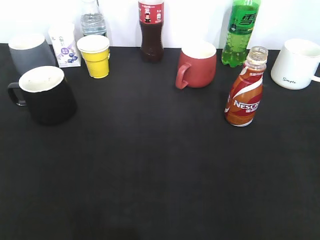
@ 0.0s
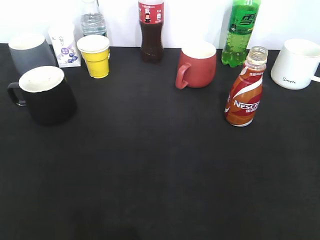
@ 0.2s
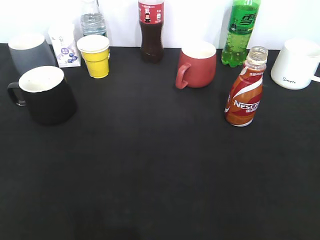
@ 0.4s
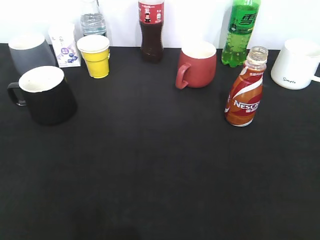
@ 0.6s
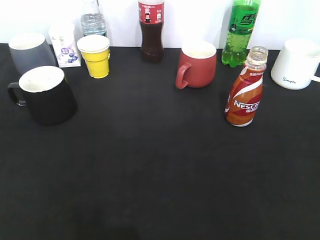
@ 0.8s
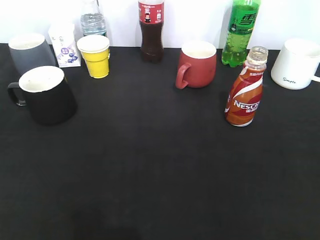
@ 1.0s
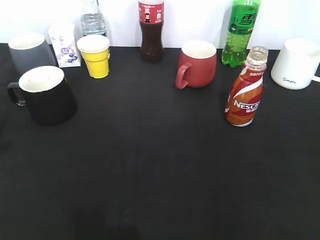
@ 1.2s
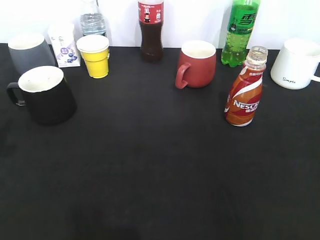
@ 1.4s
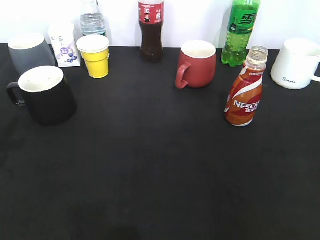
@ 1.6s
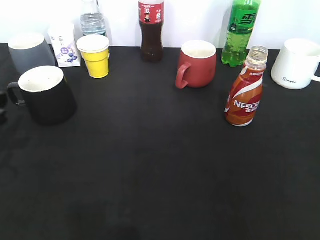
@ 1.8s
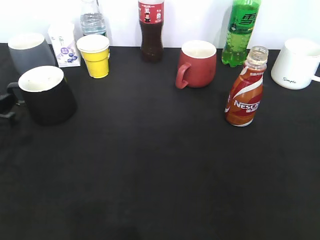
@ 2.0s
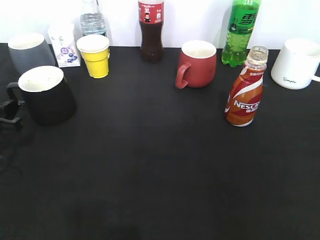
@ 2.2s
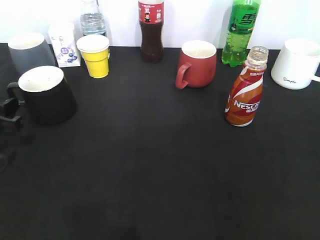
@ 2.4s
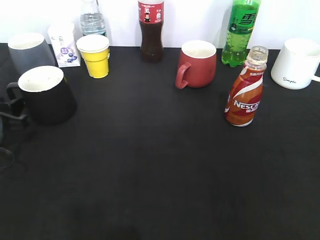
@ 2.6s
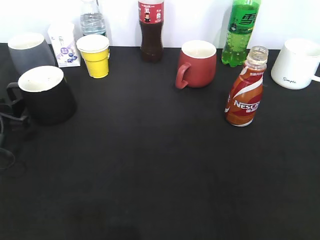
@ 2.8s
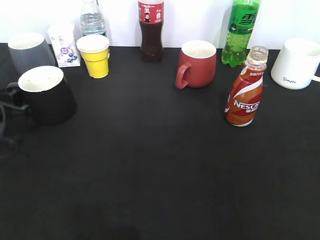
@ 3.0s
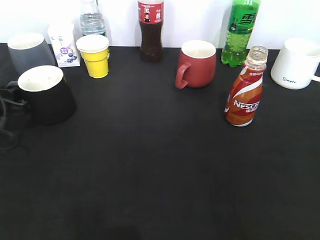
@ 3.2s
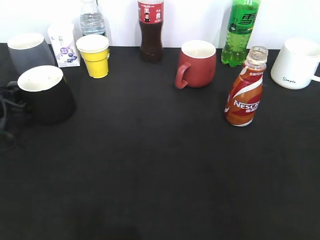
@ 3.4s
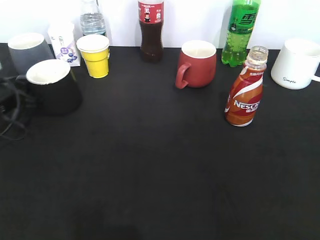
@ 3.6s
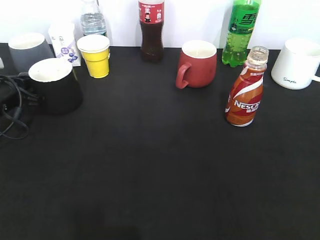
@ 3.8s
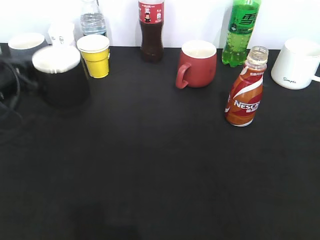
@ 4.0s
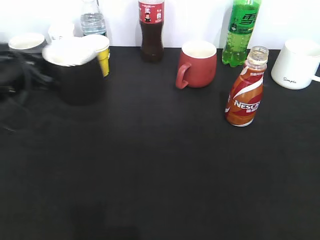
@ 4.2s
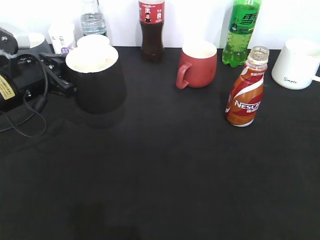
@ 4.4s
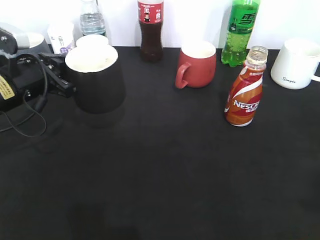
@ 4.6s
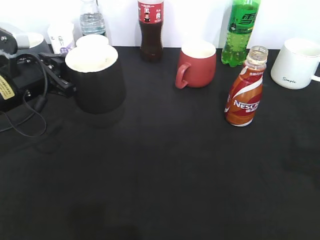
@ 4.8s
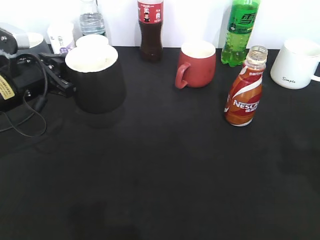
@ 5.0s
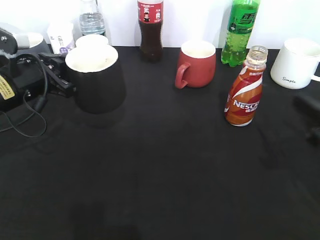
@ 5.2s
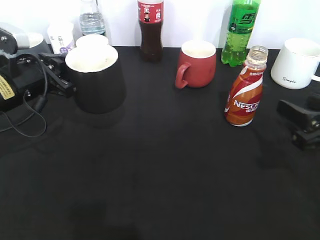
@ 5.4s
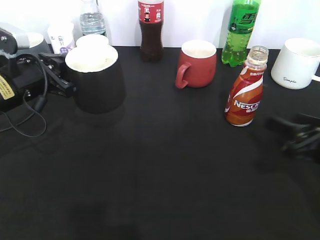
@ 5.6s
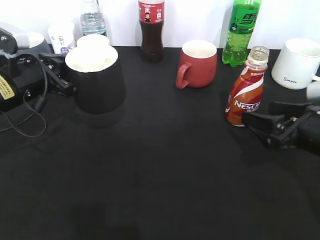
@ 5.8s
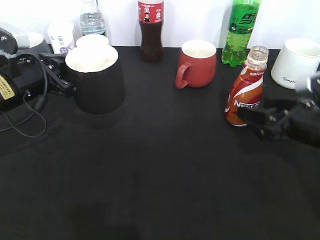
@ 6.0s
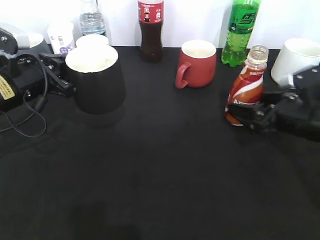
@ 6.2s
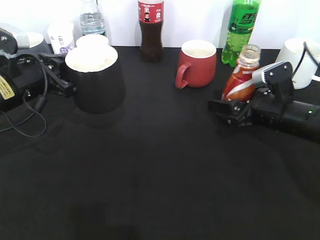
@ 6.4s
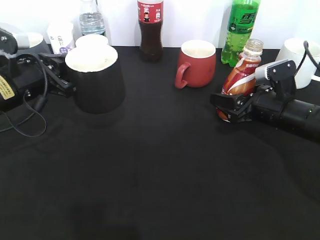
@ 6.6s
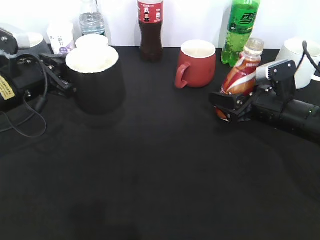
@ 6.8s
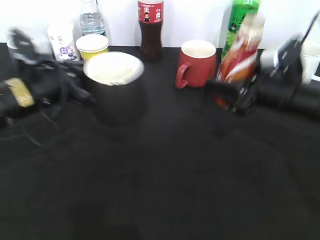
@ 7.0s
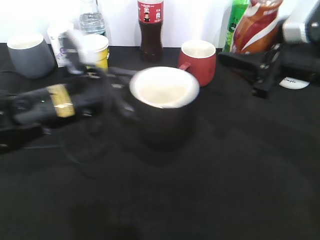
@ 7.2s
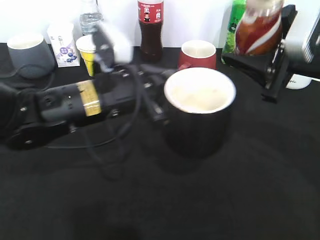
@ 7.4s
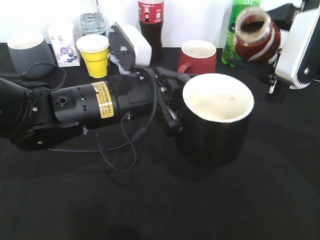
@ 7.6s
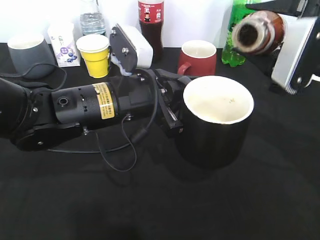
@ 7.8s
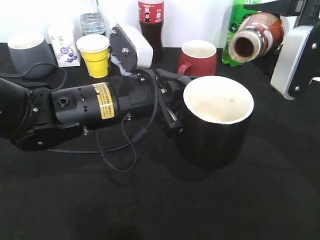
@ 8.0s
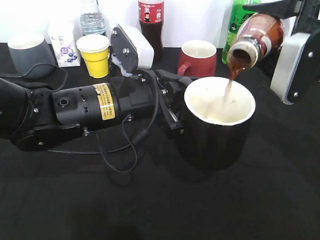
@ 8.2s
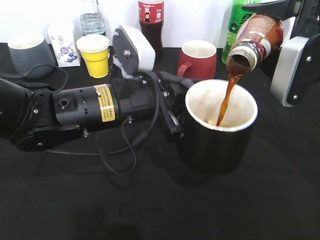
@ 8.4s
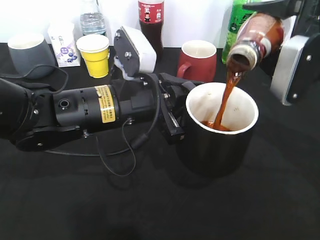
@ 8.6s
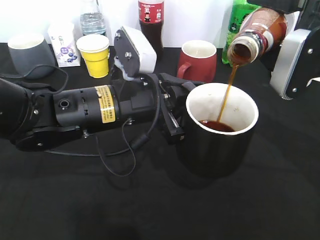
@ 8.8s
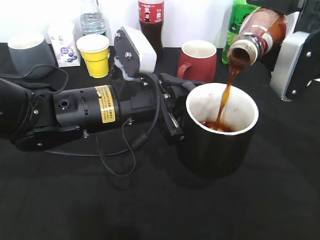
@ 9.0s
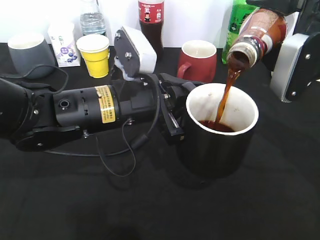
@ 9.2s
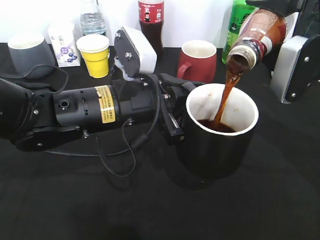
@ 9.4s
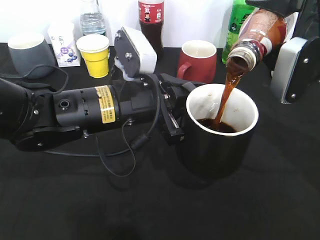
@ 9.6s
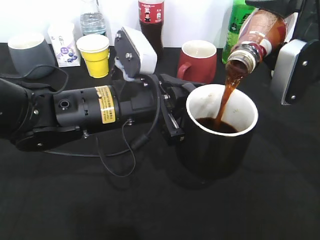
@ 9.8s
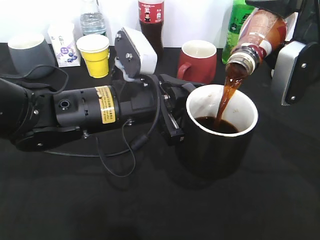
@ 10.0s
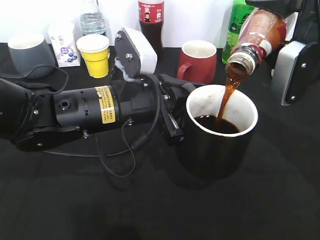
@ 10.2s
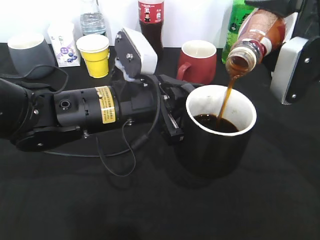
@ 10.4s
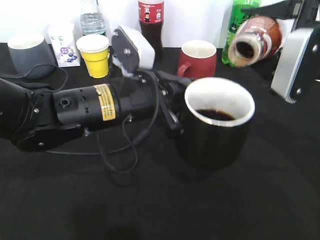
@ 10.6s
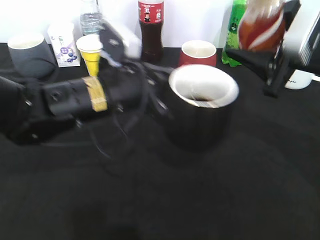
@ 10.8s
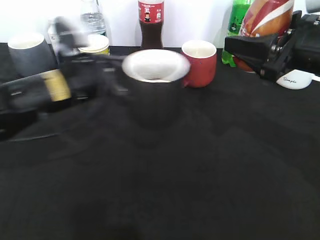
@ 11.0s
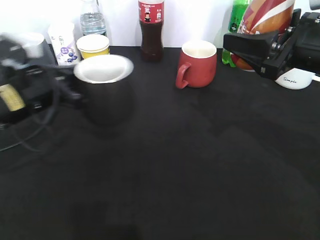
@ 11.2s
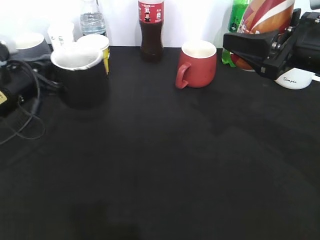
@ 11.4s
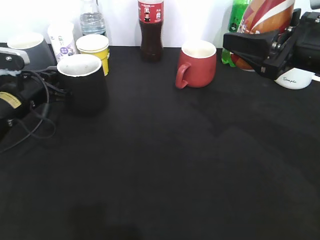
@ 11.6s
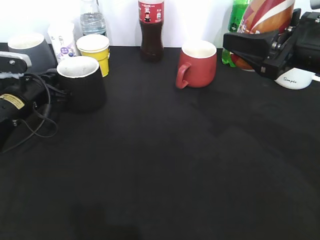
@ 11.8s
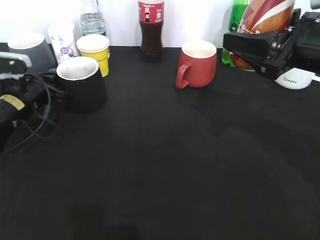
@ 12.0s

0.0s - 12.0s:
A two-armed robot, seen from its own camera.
Step, 0.8s - 3.6s: Grasp the black cup with left gripper.
Step, 3.8s - 4.4s: Lift the black cup with left gripper.
Step, 4.6s - 6.4s: Grasp the bottle with coffee with right gripper.
Step, 6.6s - 10.8s: Pour the coffee from bottle to cup with right gripper.
0.0s - 1.6s: The left gripper goes about 20 cm forward, and opens its fingers.
3.0s - 4.4s: The left gripper shifts about 5 cm to the right, and closes its fingers.
4.4s - 6.0s: The right gripper shifts some 30 cm forward and downward, and opens.
6.0s - 7.6s: The left gripper shifts roughly 15 cm to the right. The right gripper is displaced upward by roughly 10 cm, and closes its fingers.
9.0s - 10.4s: The grippers make only small movements.
10.4s - 12.0s: The left gripper shifts approximately 25 cm to the left, forward and downward, and opens up.

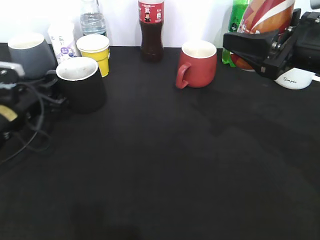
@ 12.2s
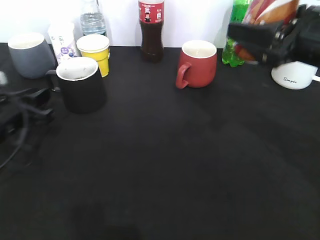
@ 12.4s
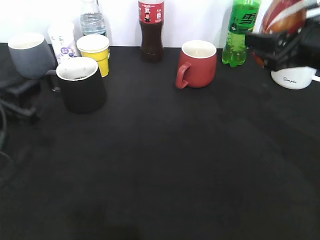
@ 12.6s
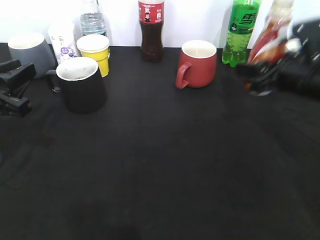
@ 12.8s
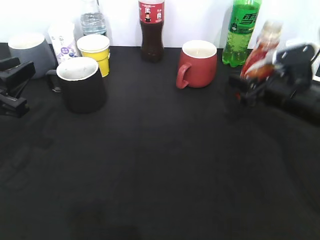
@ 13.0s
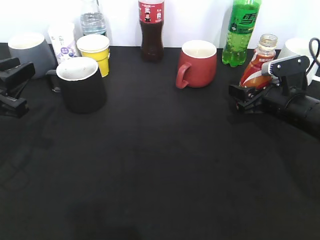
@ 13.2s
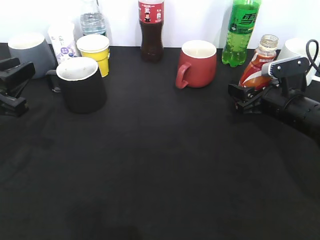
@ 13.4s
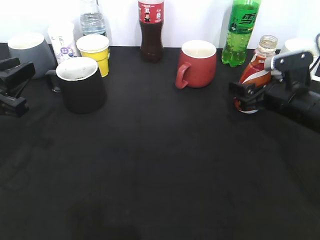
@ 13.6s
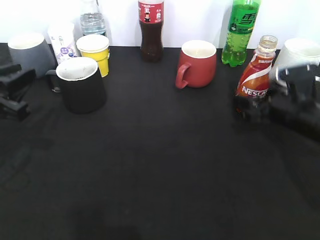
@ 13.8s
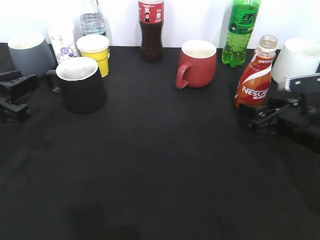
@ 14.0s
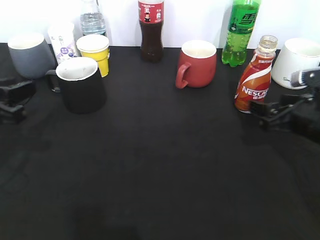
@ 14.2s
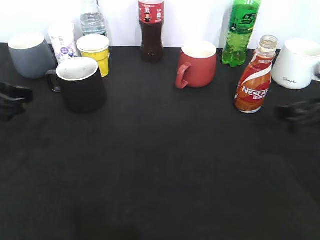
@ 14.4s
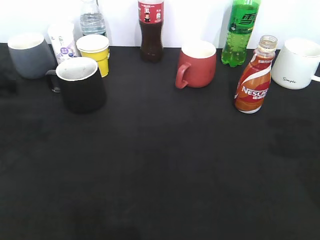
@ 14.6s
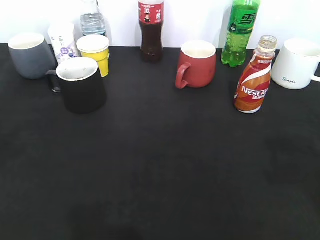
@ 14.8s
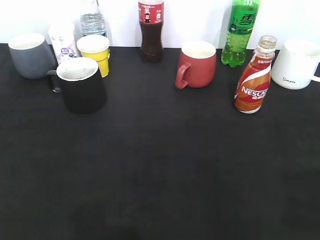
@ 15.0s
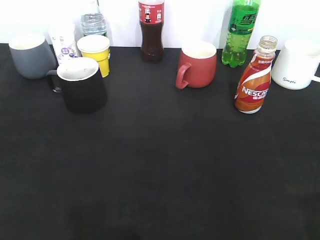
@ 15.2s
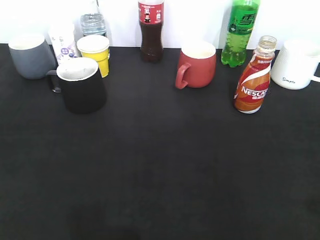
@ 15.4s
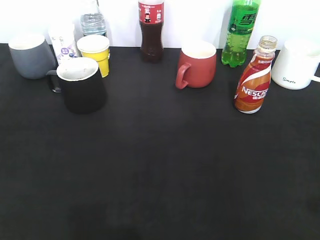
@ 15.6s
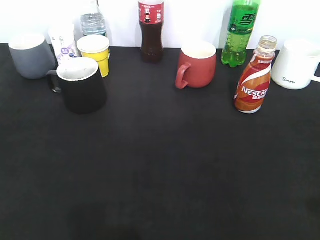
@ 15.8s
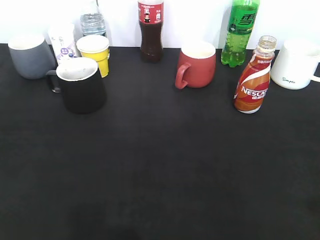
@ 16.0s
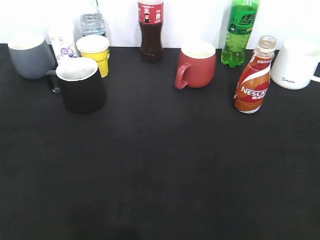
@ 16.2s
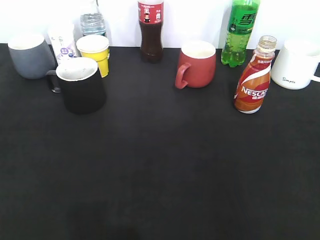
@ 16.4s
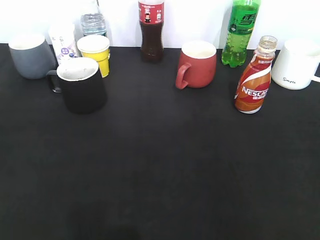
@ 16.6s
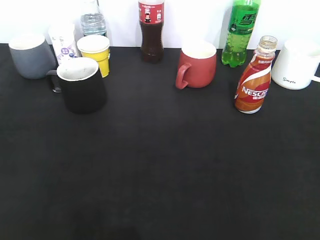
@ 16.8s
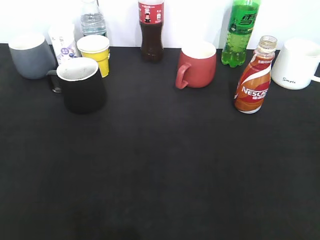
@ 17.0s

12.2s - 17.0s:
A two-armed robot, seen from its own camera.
Step, 12.4s - 13.8s: Place the coffee bottle on the table with right gripper.
12.2s - 13.8s: The left gripper travels backward and upward by some 15 cm. The right gripper is displaced downward by some 15 cm, and opens up.
13.8s - 15.4s: The two grippers go some 25 cm backward and upward. The right gripper closes up.

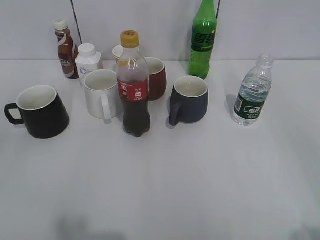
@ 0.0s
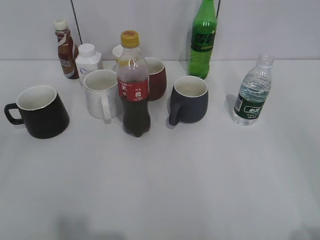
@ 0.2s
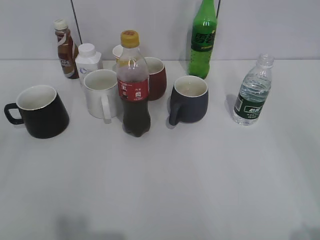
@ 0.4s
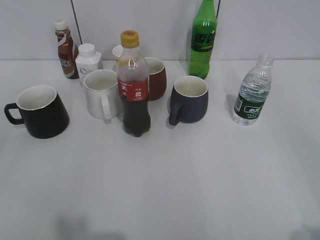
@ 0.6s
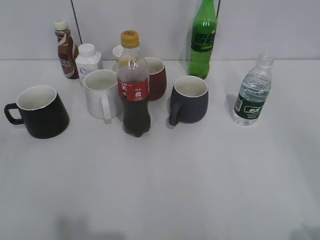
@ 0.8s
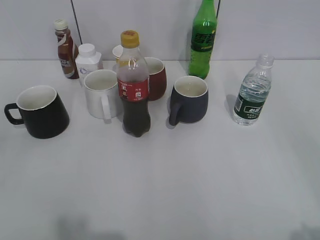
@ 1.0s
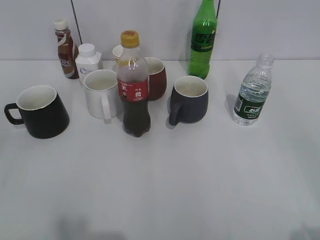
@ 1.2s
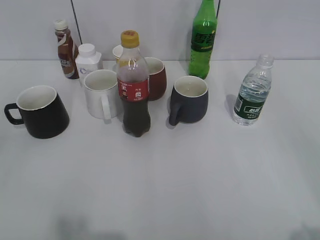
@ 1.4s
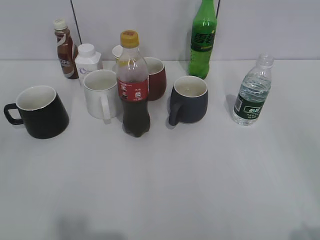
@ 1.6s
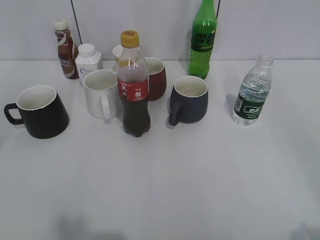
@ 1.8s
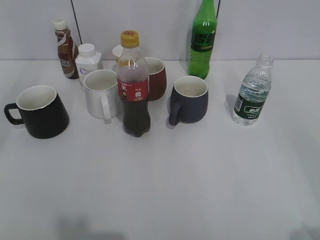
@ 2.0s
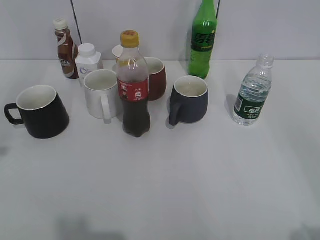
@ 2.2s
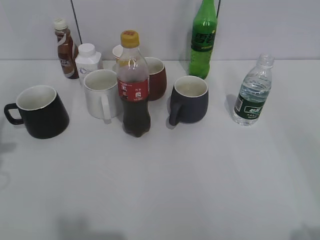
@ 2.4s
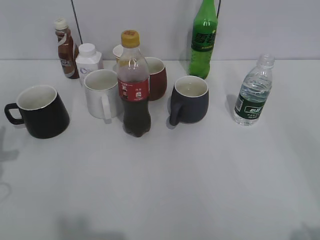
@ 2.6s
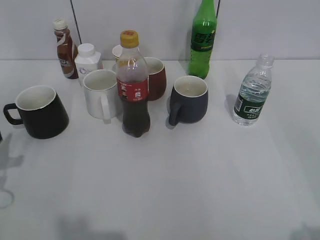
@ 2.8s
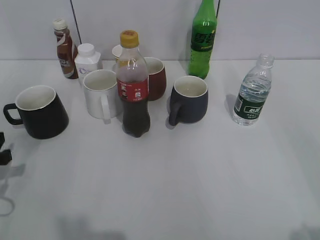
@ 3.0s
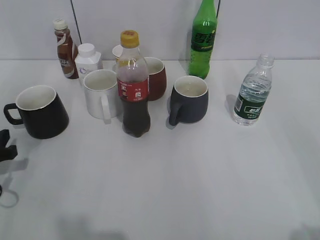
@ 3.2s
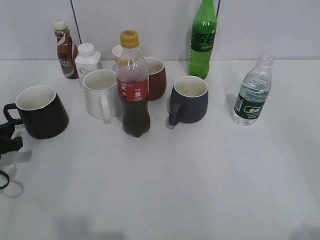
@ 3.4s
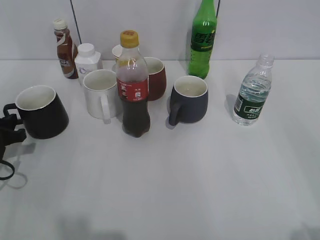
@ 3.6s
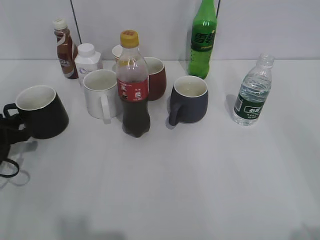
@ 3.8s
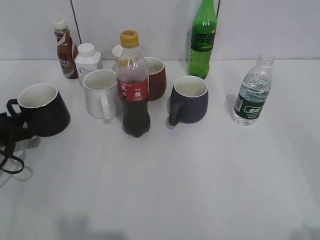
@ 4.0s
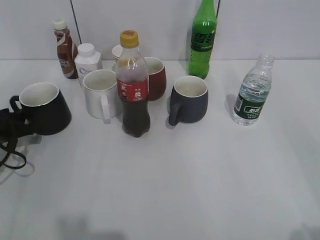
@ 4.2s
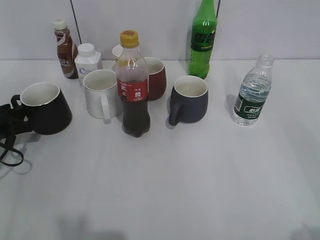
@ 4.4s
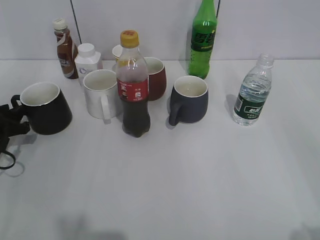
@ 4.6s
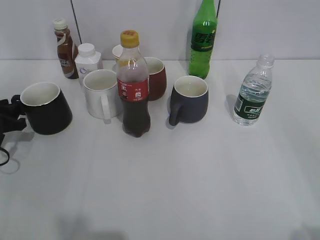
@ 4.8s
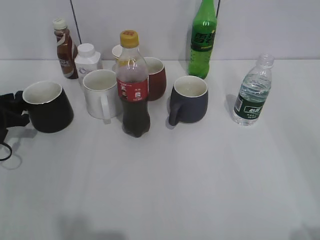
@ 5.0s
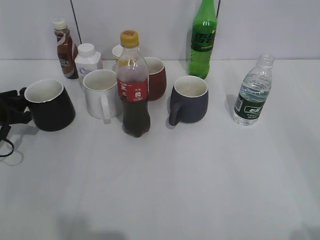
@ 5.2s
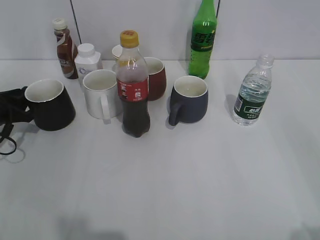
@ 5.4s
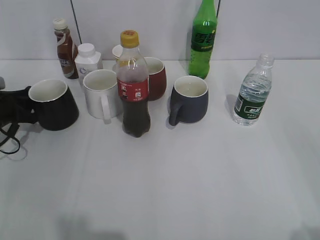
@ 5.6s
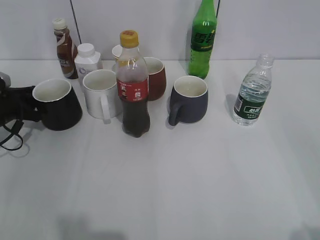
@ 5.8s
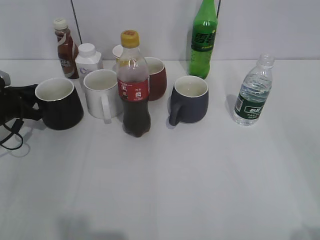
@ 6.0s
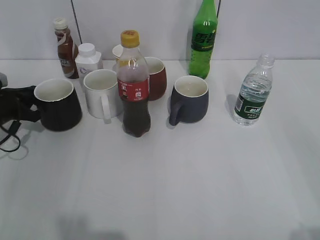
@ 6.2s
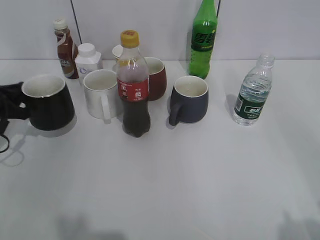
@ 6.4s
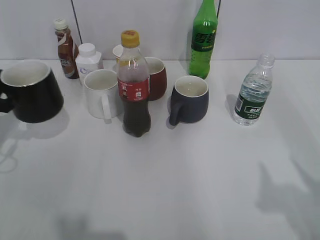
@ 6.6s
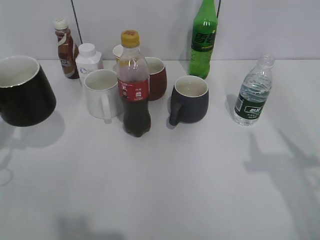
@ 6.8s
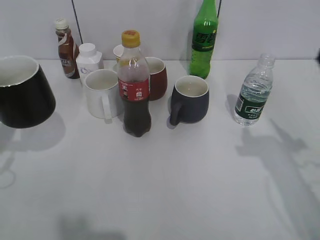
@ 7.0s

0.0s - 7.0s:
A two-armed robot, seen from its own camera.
Step, 1.6s - 5.8s: Grasp the black cup with left gripper.
Step, 6.0s - 6.8s: Lift the black cup with left gripper.
1.4s - 2.8s: The left gripper goes some 25 cm forward and downward.
2.8s - 4.2s: The left gripper shifts roughly 10 cm forward and downward.
4.2s - 5.6s: The left gripper heads forward, covering approximately 5 cm.
5.6s - 7.0s: The right gripper shifts approximately 20 cm forward, and closes its fingers. Meanwhile the left gripper shifts about 15 cm backward and upward, and closes up.
